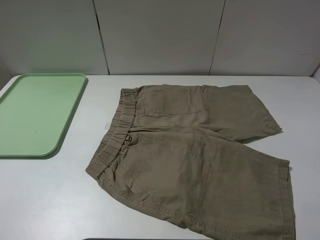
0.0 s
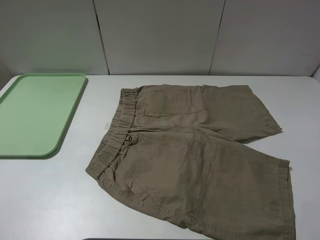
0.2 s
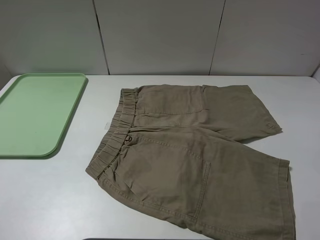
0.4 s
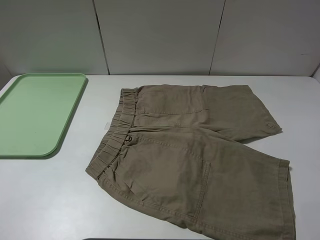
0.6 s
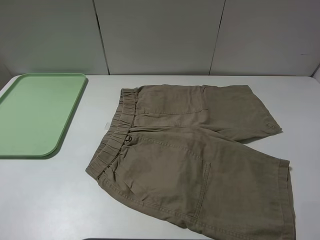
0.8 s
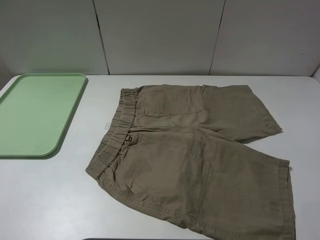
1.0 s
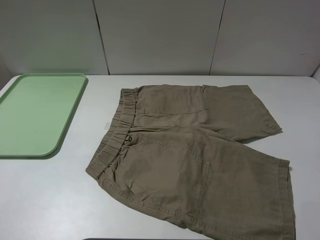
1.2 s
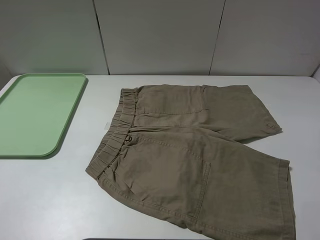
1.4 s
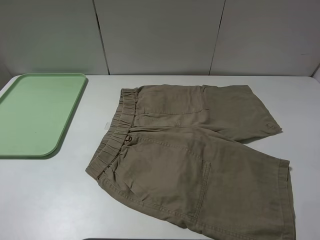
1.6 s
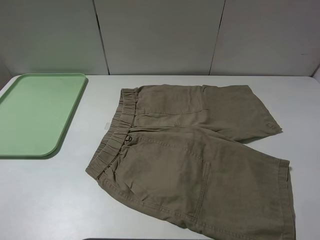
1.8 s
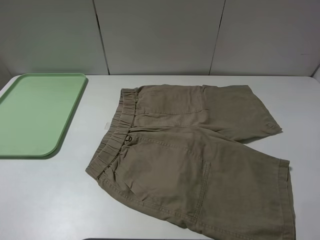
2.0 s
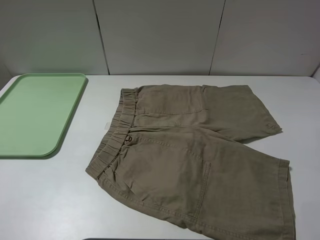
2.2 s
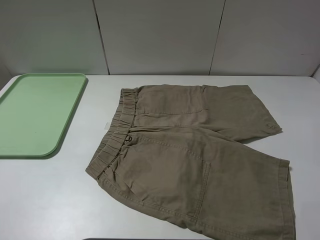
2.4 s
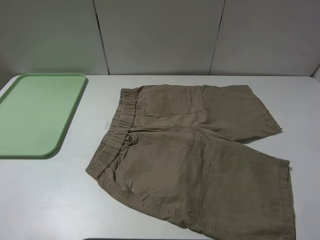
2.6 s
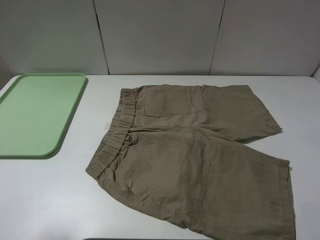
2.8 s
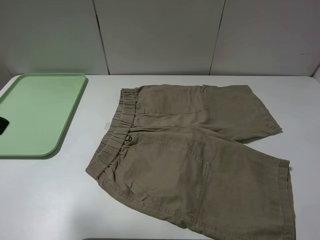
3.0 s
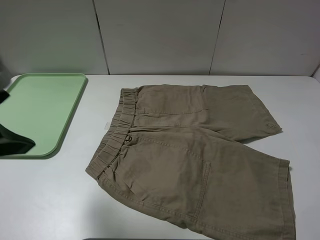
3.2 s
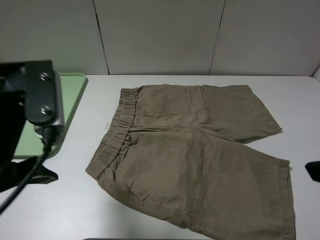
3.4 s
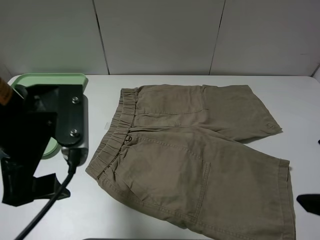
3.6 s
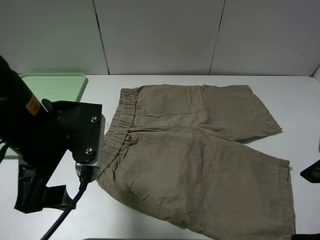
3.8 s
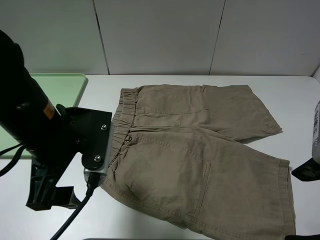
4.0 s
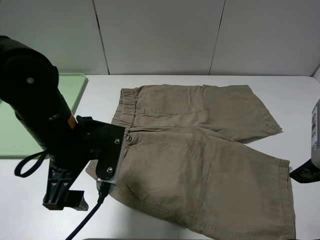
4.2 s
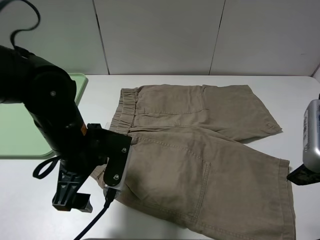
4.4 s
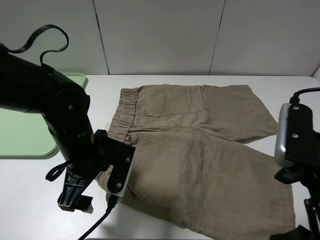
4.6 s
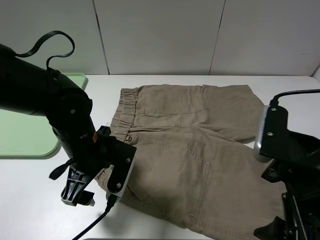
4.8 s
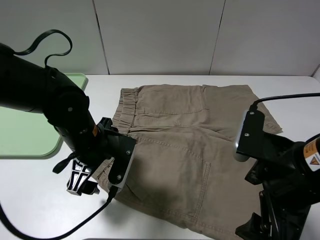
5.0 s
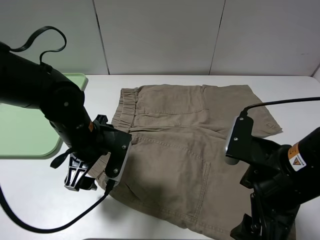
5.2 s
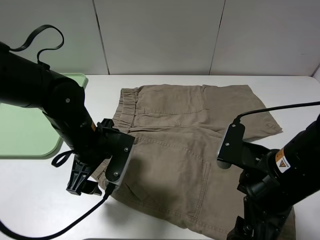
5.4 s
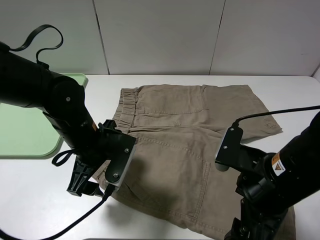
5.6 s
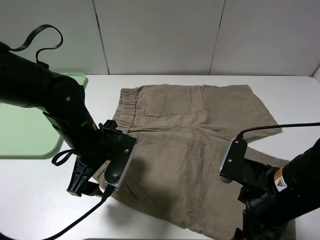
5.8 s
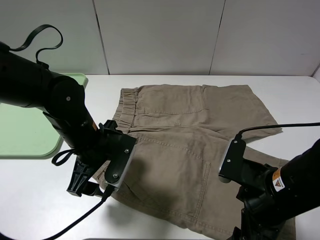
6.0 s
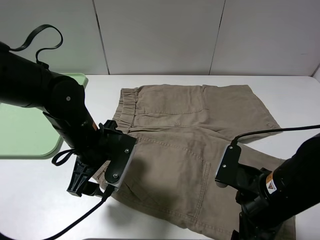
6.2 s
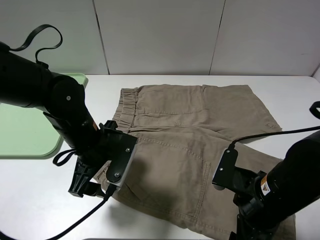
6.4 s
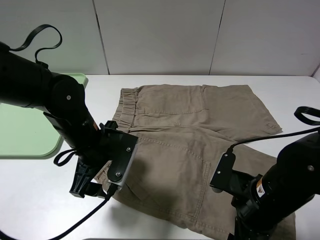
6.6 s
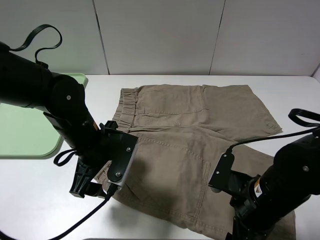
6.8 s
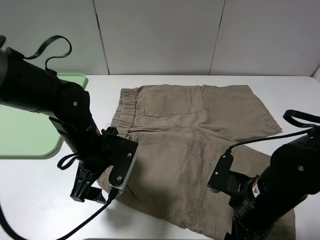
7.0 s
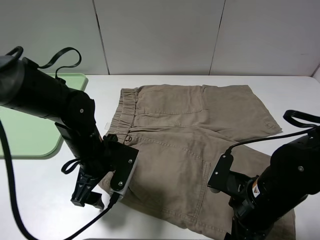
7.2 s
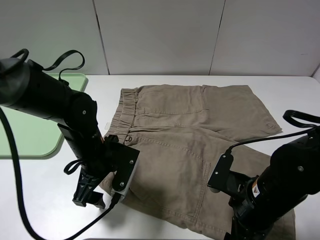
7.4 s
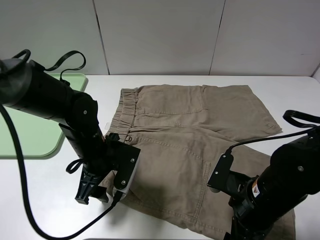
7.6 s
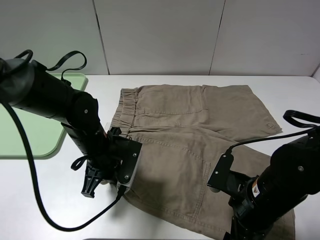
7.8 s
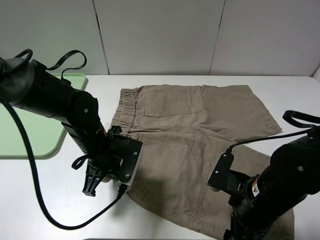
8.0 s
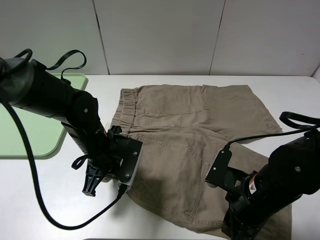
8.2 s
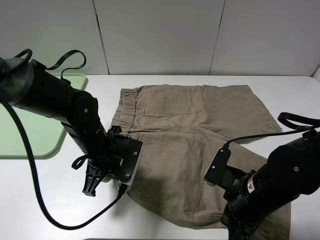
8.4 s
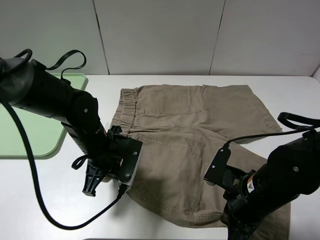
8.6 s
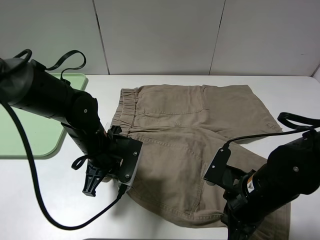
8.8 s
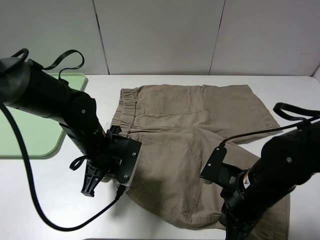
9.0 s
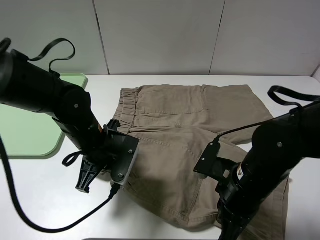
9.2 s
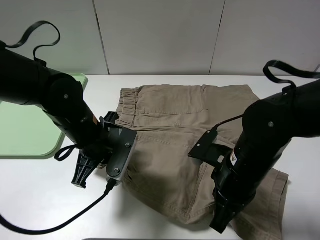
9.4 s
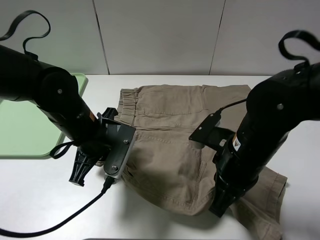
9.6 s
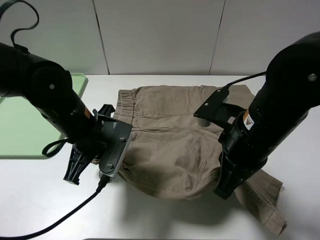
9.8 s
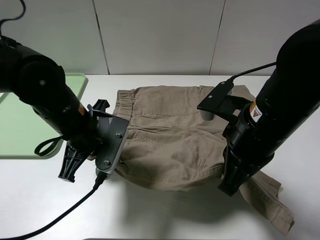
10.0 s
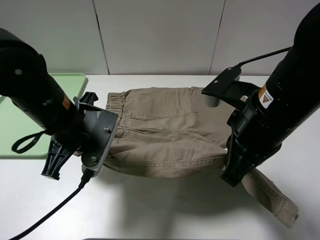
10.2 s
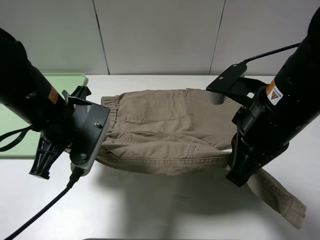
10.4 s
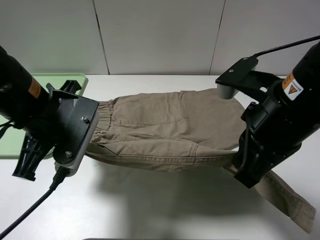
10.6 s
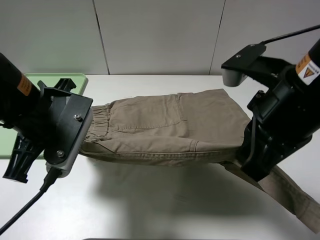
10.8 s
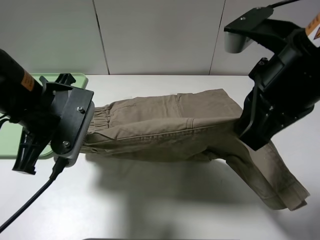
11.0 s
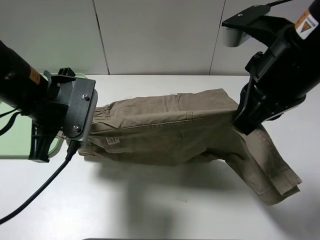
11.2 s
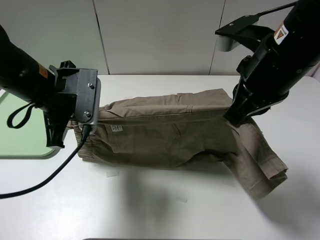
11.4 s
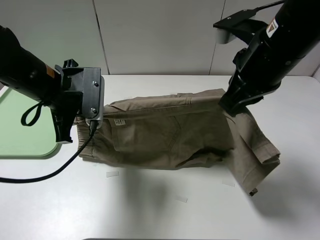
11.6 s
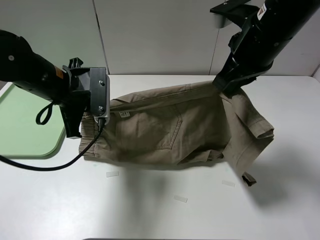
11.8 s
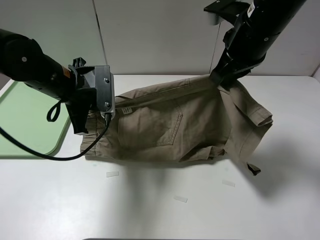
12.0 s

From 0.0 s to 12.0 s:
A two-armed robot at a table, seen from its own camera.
Task of the whole recording: fold the khaki jeans in half with two grippers, then fold them in half again, and use the left claw to place the folded fold khaki jeans on the tray.
Step, from 0.0 s to 8.4 s: Grasp the khaki trousers with the left gripper.
From 0.0 s to 1.6 s: Neither gripper changes place.
From 1.6 s to 3.0 s: The right gripper goes about 10 cm forward and upward. The left gripper moves forward, roughly 15 cm.
From 3.0 s to 4.4 s: The right gripper travels downward and to the left by roughly 10 cm, while the left gripper shifts about 20 cm downward and to the right.
From 4.4 s to 6.0 s: The right gripper goes roughly 10 cm downward.
From 6.0 s to 7.6 s: The grippers move only a little.
From 7.6 s to 9.0 s: The left gripper closes; the right gripper closes its fingers.
From 9.0 s to 10.4 s: Both grippers travel together upward, roughly 15 cm.
From 10.4 s to 12.0 s: The left gripper heads forward, covering approximately 10 cm. The right gripper moves forward, approximately 15 cm.

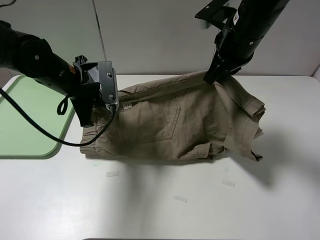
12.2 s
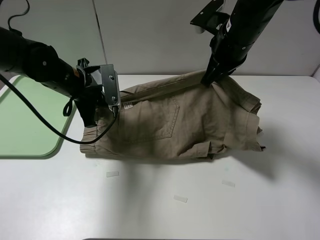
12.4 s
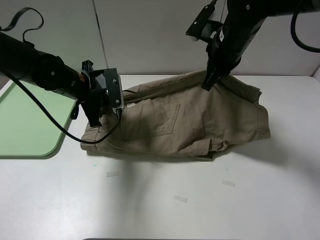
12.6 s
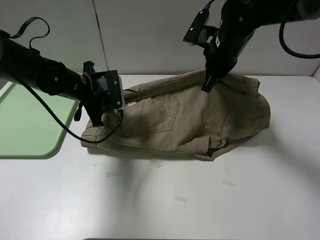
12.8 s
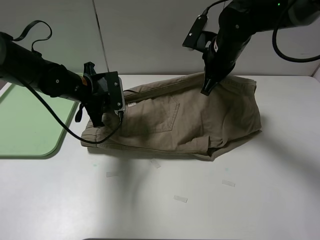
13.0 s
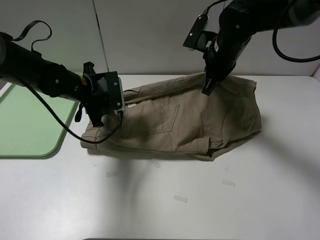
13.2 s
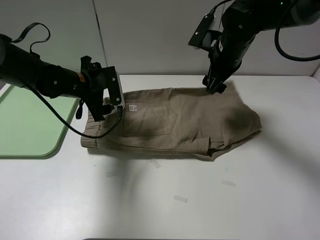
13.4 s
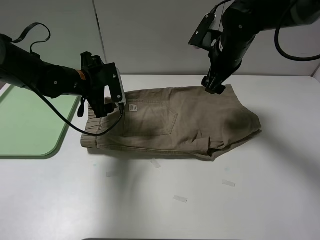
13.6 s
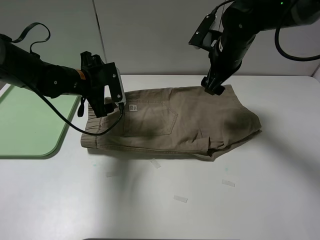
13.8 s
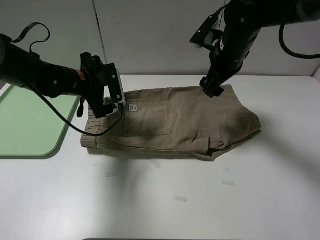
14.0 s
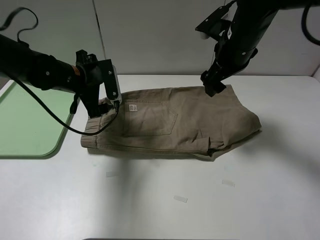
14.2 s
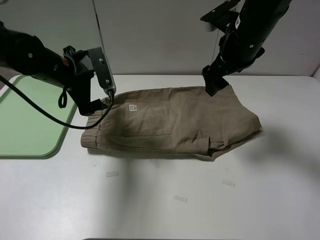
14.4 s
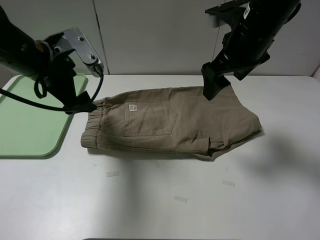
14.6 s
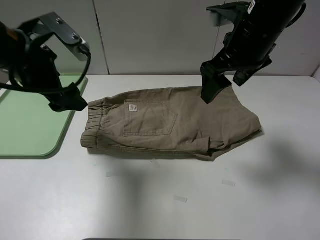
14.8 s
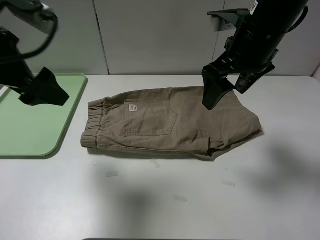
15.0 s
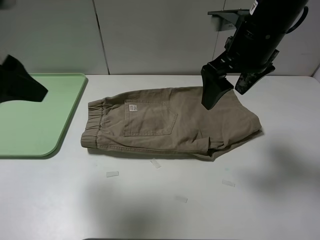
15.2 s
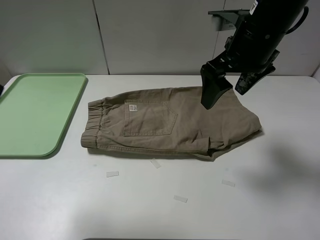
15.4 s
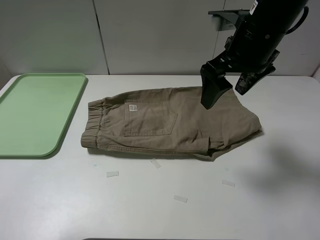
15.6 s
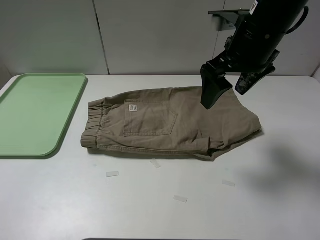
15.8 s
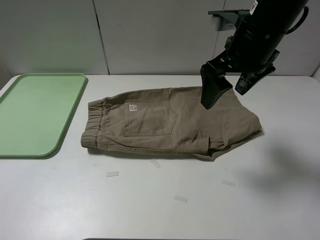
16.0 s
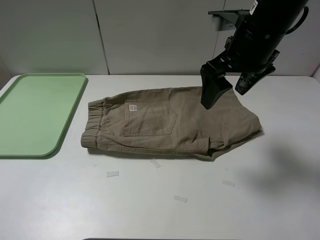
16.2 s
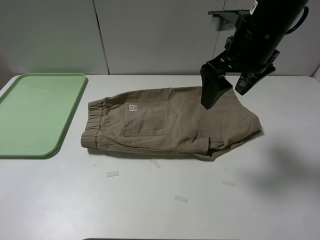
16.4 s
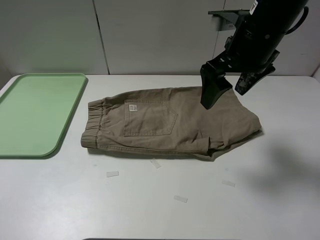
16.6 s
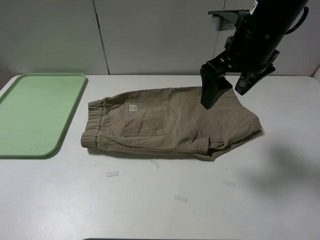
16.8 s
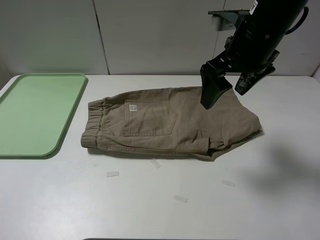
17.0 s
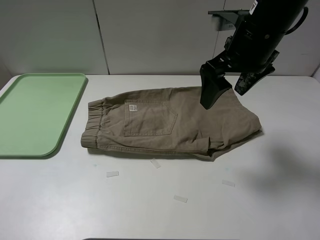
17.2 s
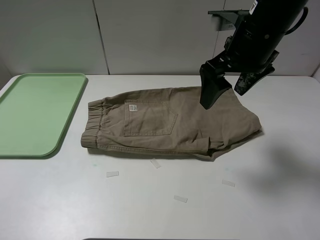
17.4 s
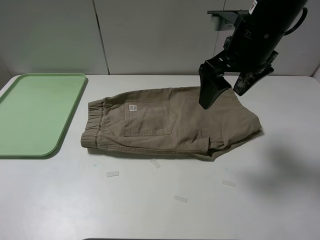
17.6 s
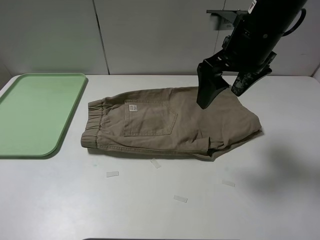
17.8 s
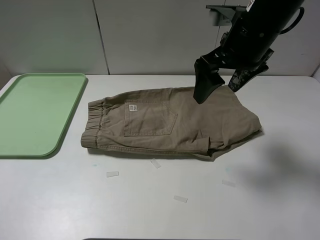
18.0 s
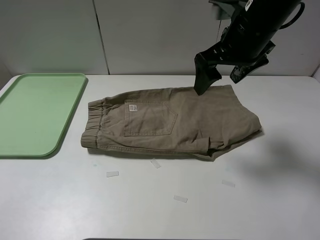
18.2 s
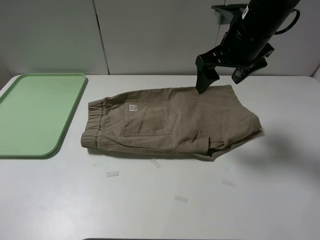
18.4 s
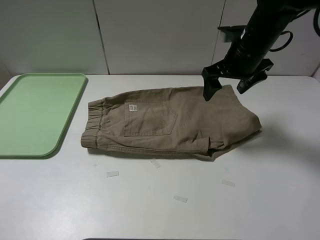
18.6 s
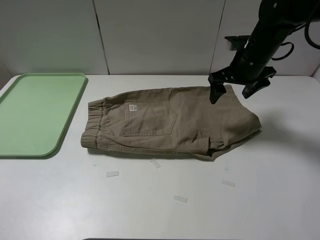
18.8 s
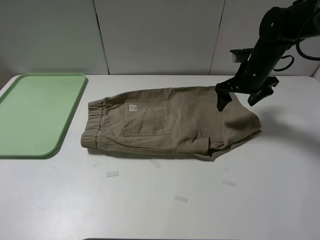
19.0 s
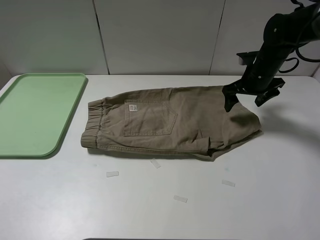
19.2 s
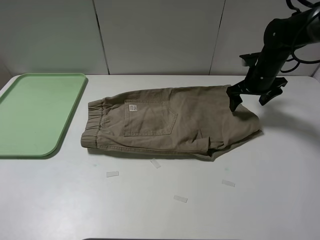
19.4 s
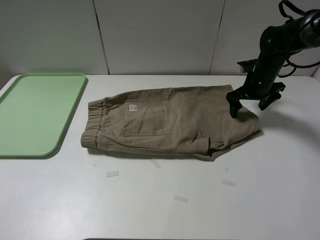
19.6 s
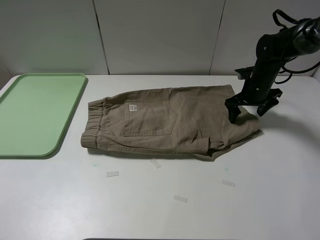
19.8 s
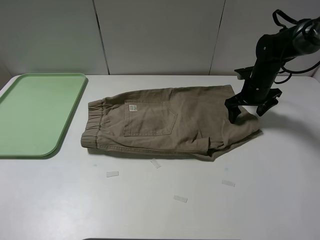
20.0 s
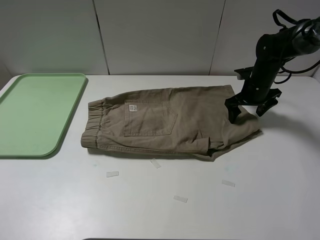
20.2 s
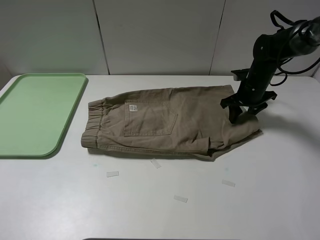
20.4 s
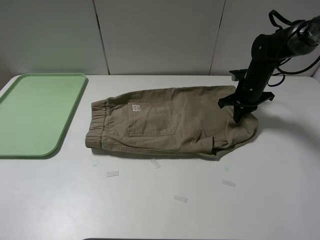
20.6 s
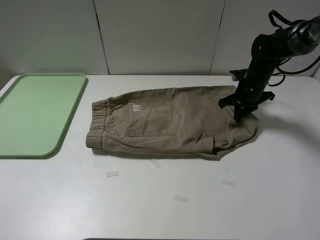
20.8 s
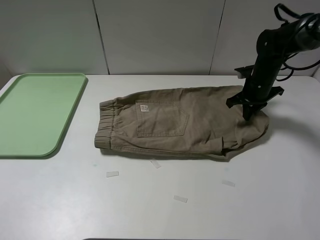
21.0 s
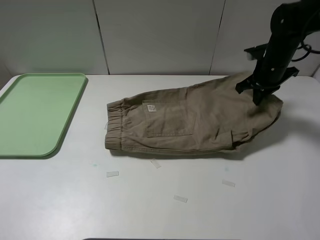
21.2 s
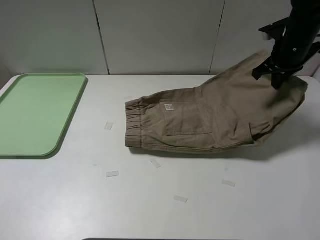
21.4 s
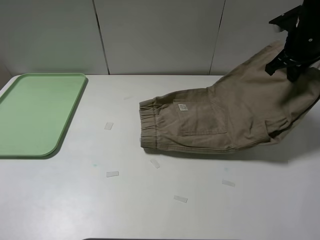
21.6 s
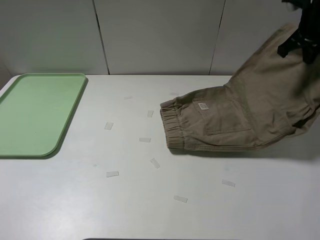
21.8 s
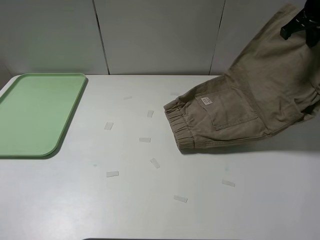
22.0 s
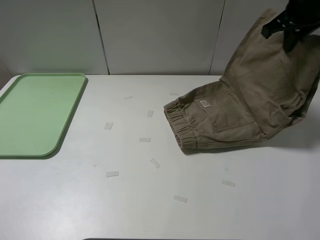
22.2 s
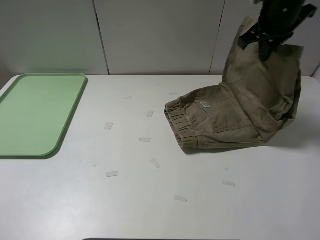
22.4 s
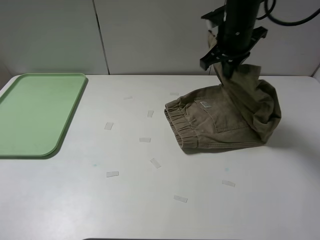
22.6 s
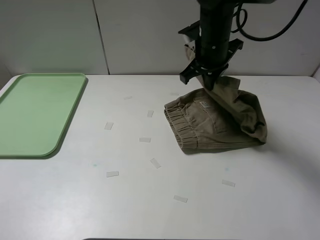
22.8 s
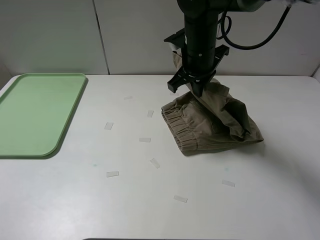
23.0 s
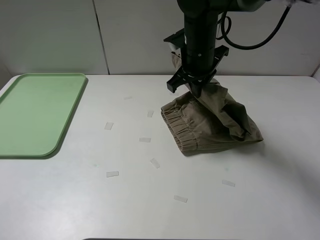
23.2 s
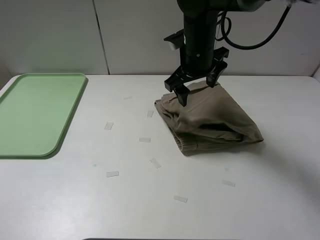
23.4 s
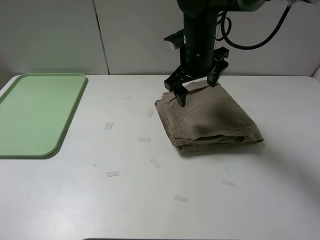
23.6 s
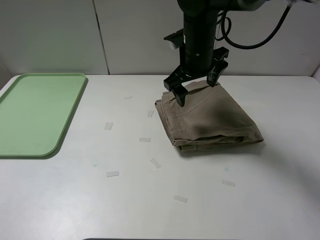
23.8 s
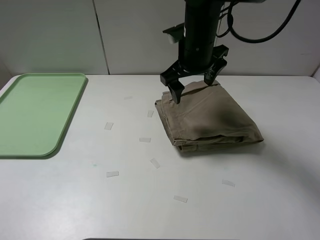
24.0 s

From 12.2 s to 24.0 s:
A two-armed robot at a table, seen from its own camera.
Task of the whole recording: fold the khaki jeans in half with two grippers, then fold them in half again, and use the left claw to place the folded fold khaki jeans on the tray.
Step, from 13.6 s to 20.8 s: Grasp the khaki trousers with the right gripper.
Step, from 21.0 s to 23.4 s: Fold the khaki trousers from right to left with the right gripper.
From 12.2 s to 13.6 s: The right gripper moves downward, approximately 5 cm, and opens up. Meanwhile the left gripper opens up.
From 13.6 s to 15.2 s: The right gripper shifts about 10 cm backward and upward. The left gripper travels upward and backward by about 25 cm.
From 15.2 s to 16.6 s: The left gripper heads backward and to the left, covering about 20 cm.
From 16.6 s to 18.2 s: The grippers make only small movements.
From 18.2 s to 19.6 s: The right gripper goes some 25 cm downward, to the right and forward.
From 19.6 s to 21.0 s: The right gripper closes.
From 21.0 s to 22.6 s: The right gripper travels to the left and upward by about 20 cm.
From 22.6 s to 24.0 s: The right gripper goes roughly 5 cm to the left, and opens.
